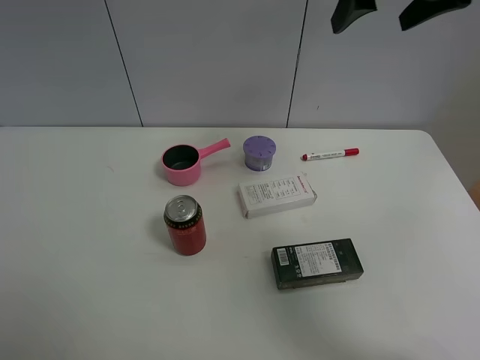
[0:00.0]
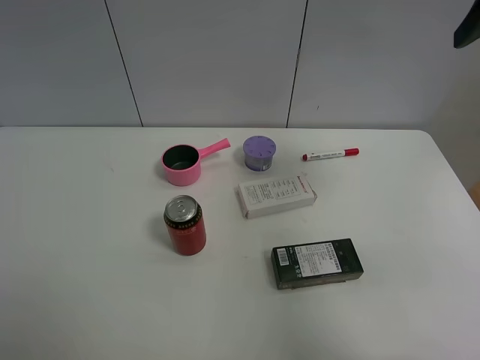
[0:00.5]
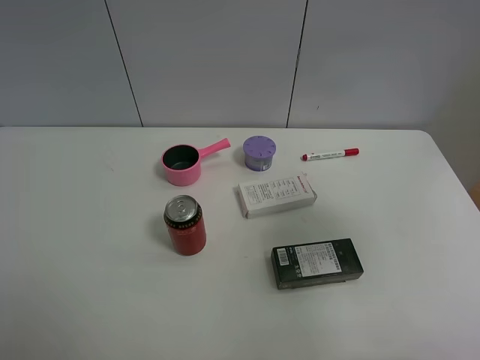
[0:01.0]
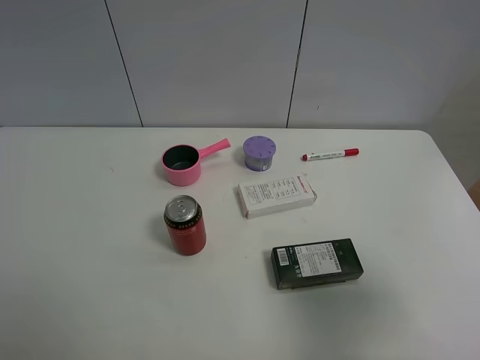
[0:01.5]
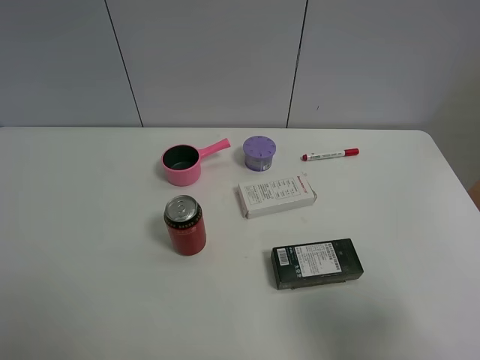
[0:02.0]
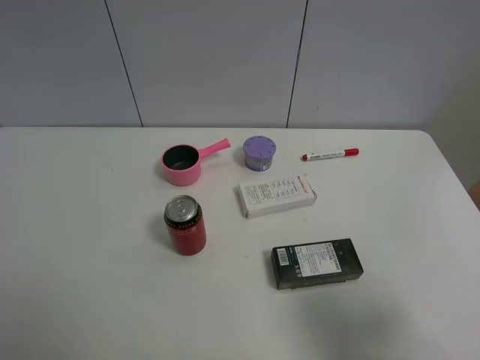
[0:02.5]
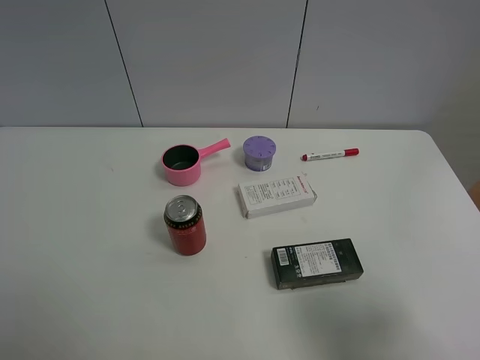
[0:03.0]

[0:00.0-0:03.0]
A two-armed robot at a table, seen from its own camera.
Task of the whole recording: the gripper move the object.
0:00.0 to 0:01.5: The right gripper shifts approximately 30 cm backward and downward.

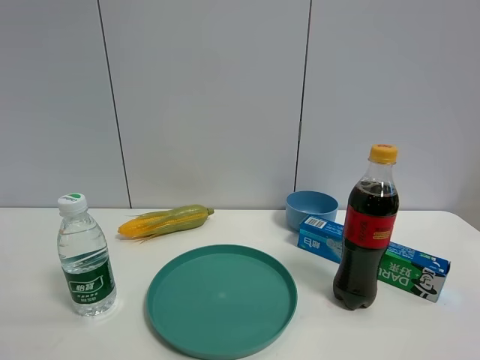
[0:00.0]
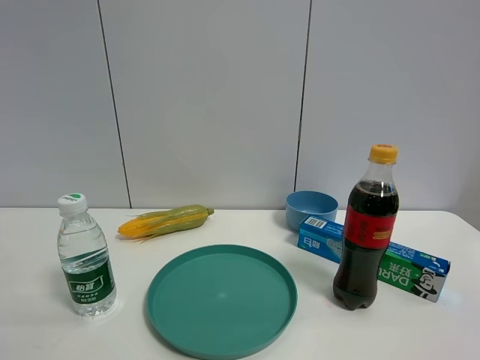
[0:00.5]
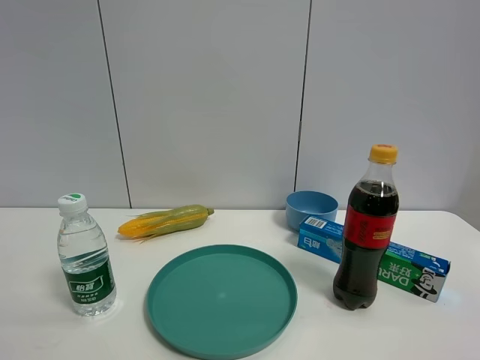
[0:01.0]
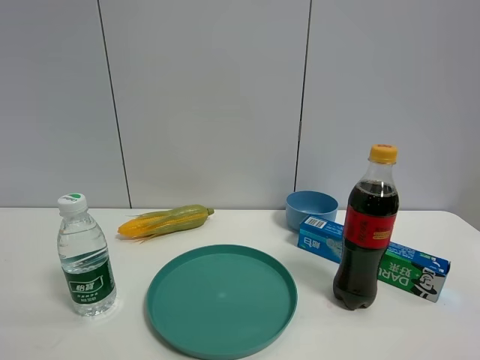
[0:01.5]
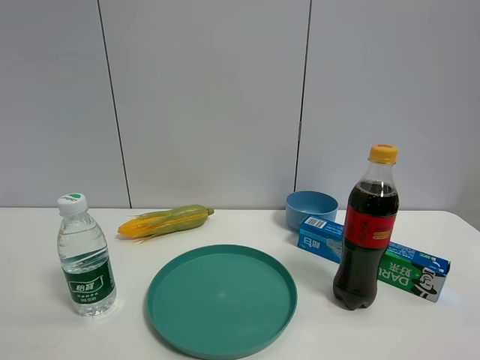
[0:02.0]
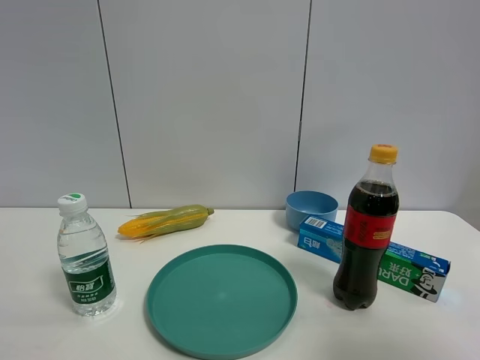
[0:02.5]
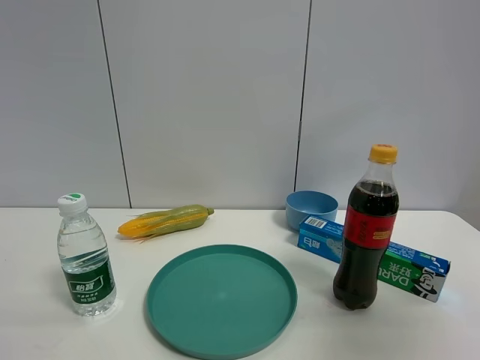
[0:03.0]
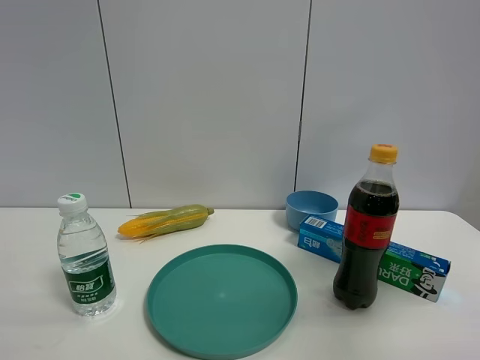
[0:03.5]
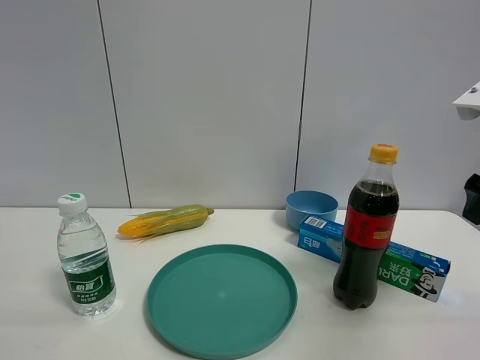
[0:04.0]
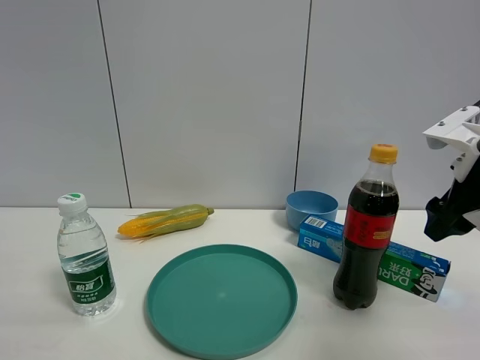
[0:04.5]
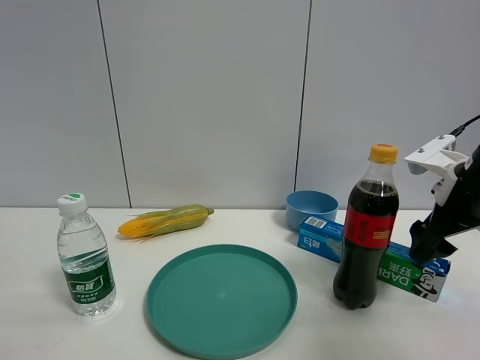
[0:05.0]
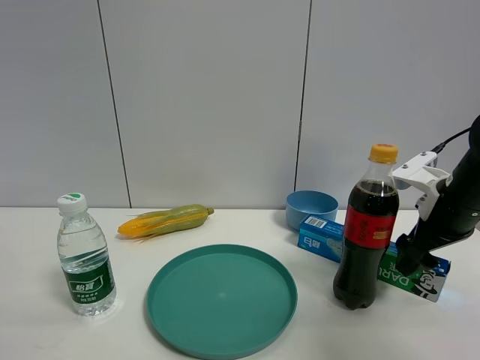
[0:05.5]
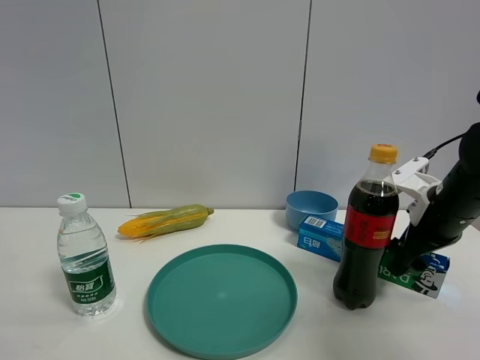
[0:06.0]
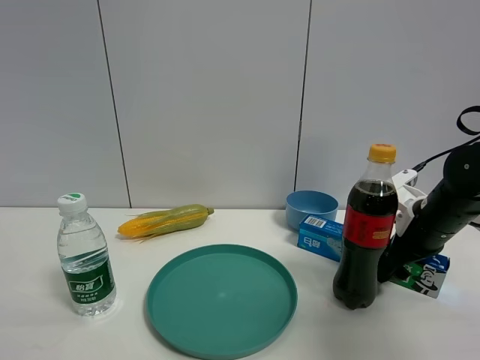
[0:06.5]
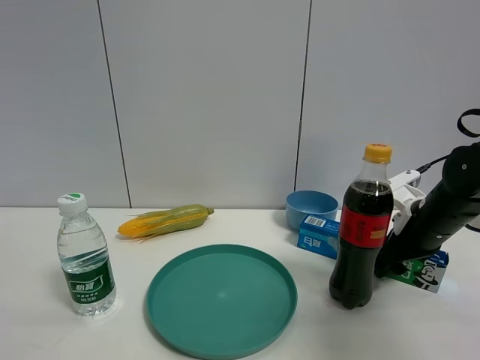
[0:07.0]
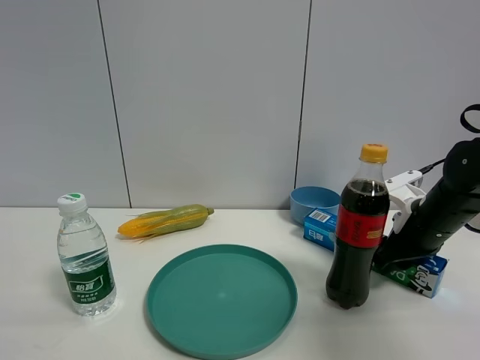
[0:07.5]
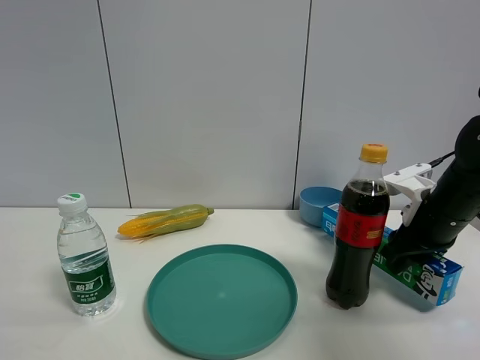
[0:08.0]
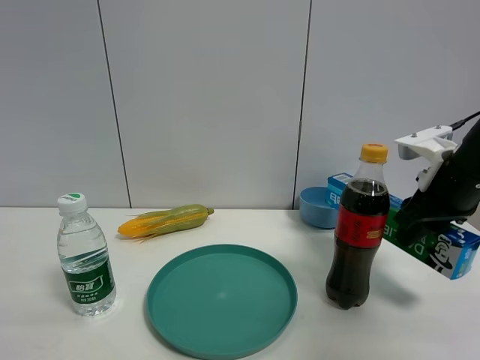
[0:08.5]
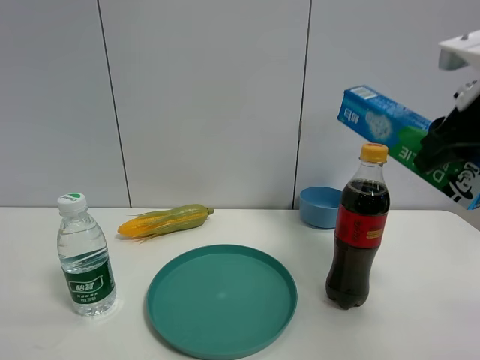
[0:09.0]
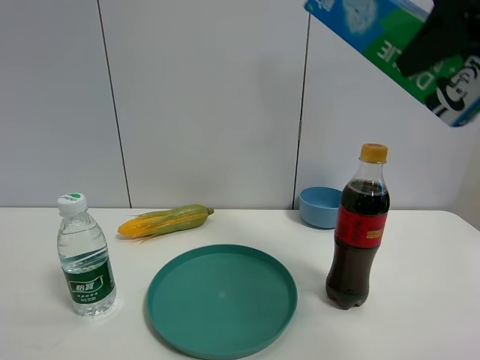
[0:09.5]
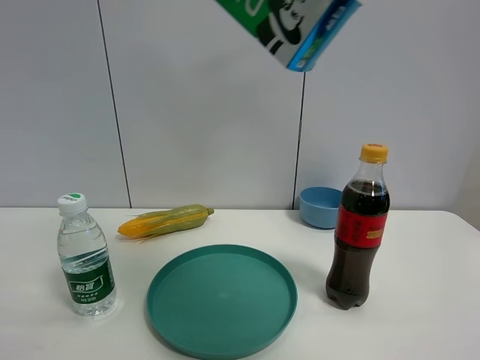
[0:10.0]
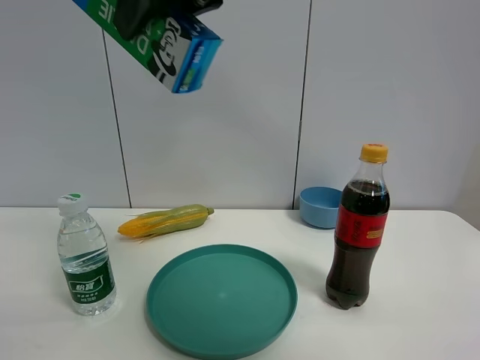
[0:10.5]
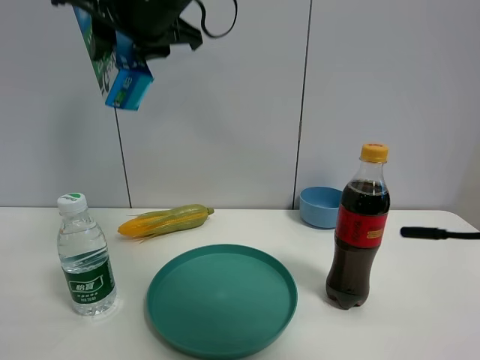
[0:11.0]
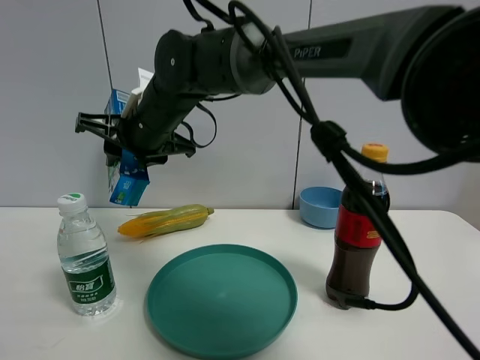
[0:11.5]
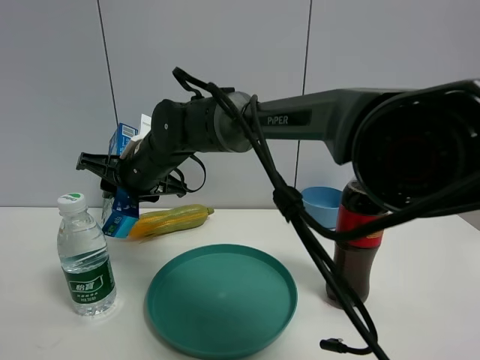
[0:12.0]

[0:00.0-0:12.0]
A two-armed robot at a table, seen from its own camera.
Task of the whole recording: the gripper move the object.
Step, 0:00.0 to 0:07.5: Grasp the toothpaste with the right gripper.
0:00.0 to 0:02.0: Both grippers stay about where they are.
0:02.0 to 0:04.0: The right gripper is displaced forward by approximately 30 cm.
0:04.0 to 0:06.0: The right gripper travels downward and forward by some 15 cm.
0:06.0 to 0:08.0: The right gripper closes its fingers.
0:08.0 to 0:10.0: The right gripper heads upward, to the left and backward, covering about 35 cm.
0:10.0 to 0:12.0: The right gripper goes roughly 40 cm downward, to the left and forward.

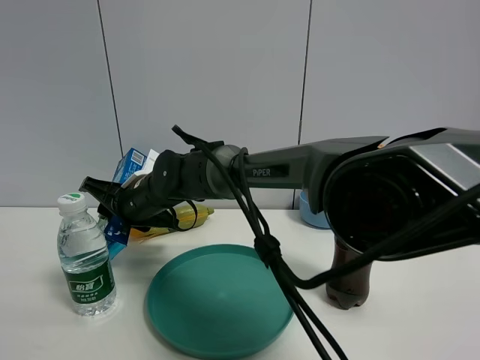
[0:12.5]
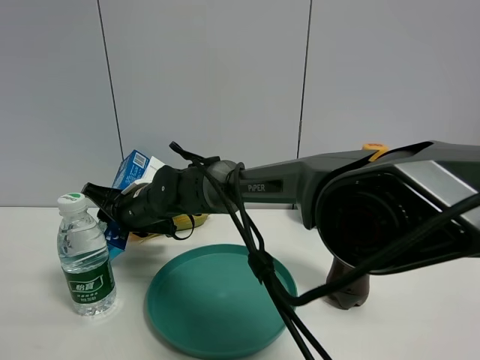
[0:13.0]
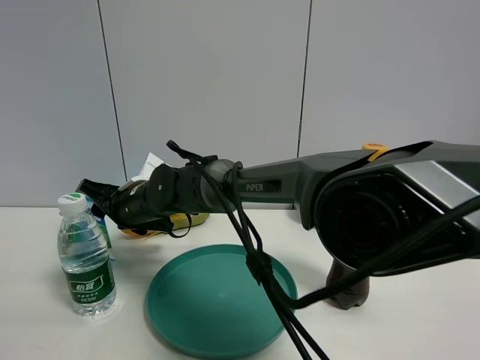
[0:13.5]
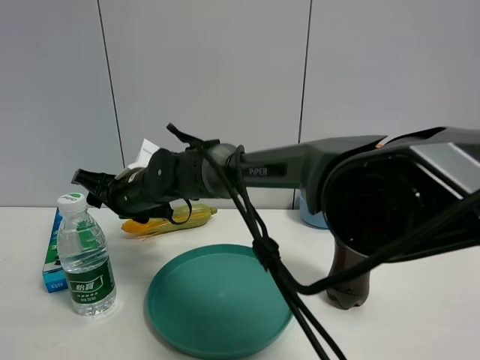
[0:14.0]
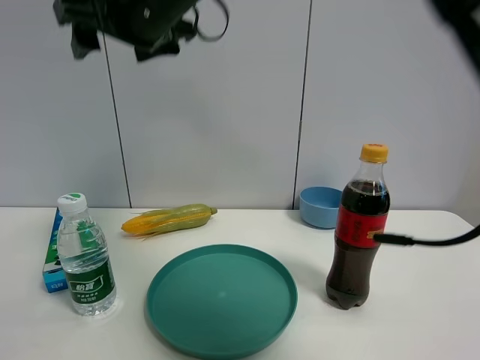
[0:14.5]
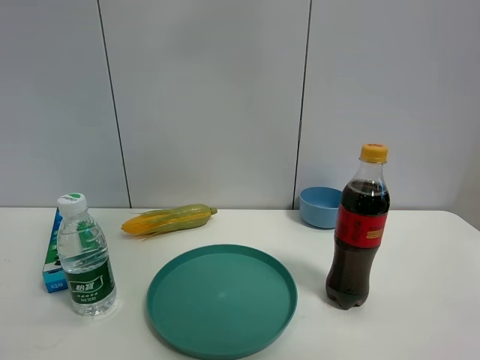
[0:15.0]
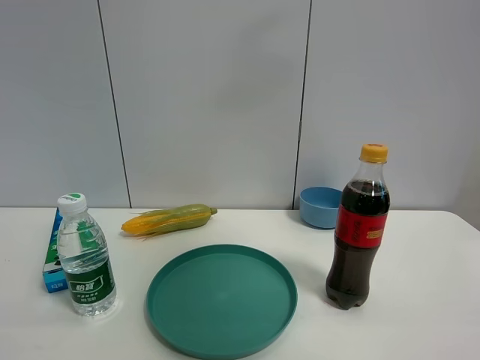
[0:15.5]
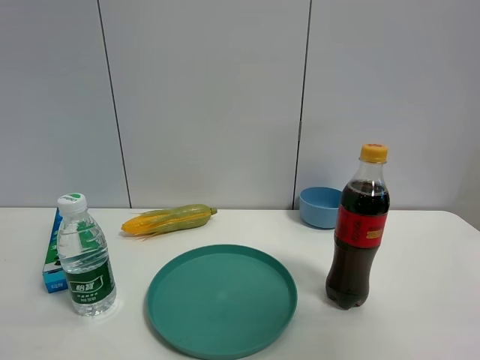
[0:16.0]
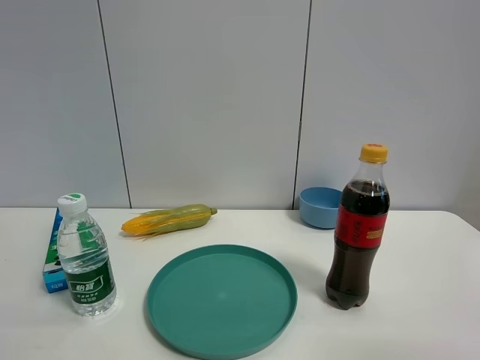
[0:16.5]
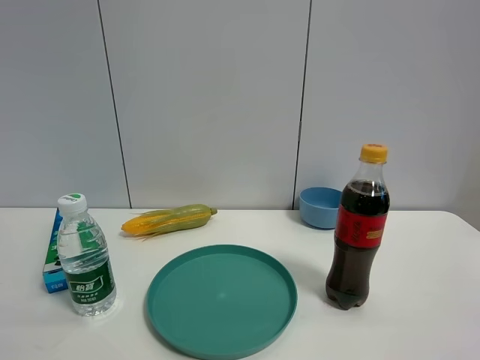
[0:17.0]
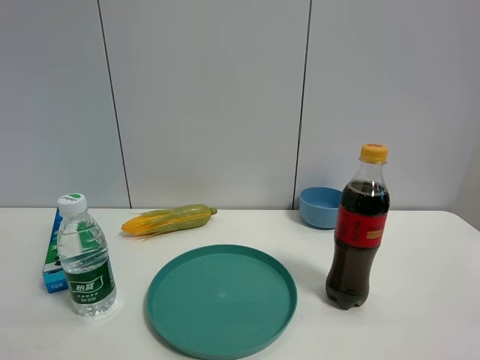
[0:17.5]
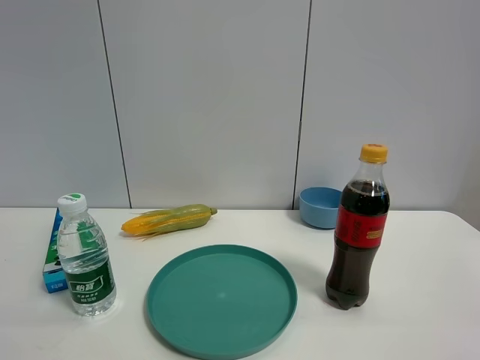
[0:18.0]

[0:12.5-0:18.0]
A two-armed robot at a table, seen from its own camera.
Task of the whole recording: the gripper move the object.
0:12.5 to 0:14.5: The right gripper travels upward by roughly 30 cm, and opens its fingers.
0:14.5 to 0:16.0: The right gripper moves to the right and backward, roughly 40 cm.
0:16.0 to 0:18.0: The right gripper is displaced backward and downward by roughly 15 cm.

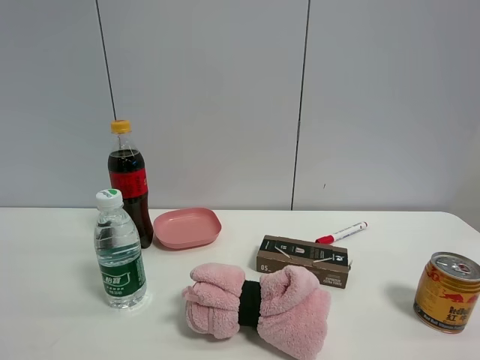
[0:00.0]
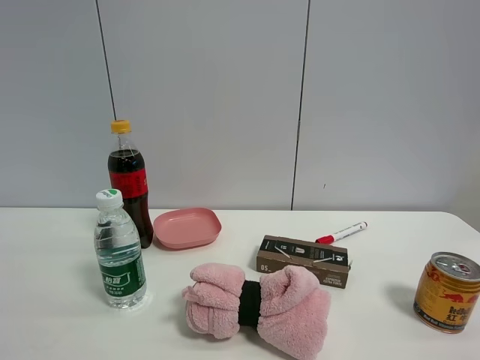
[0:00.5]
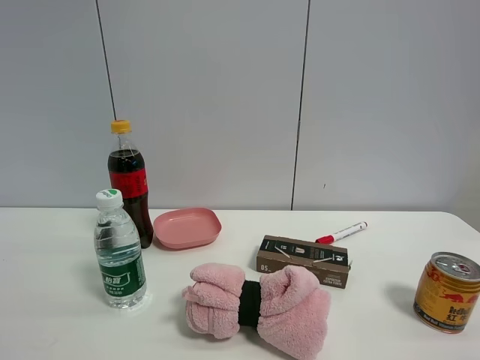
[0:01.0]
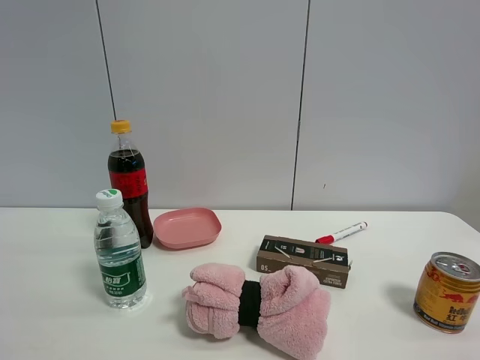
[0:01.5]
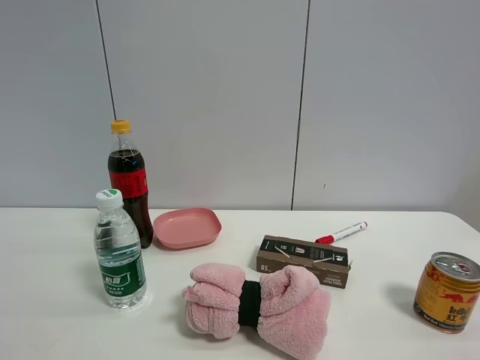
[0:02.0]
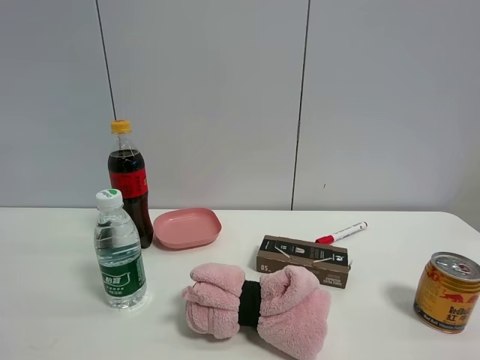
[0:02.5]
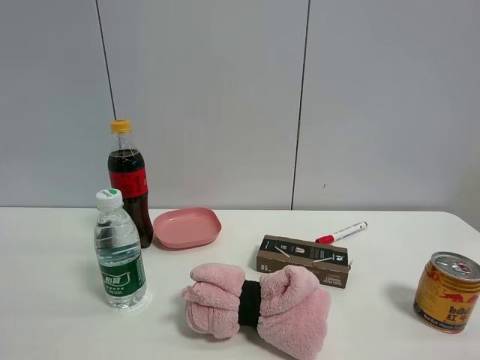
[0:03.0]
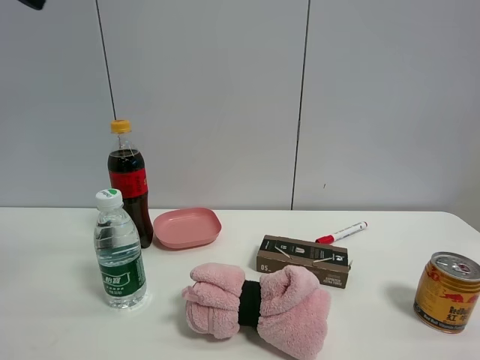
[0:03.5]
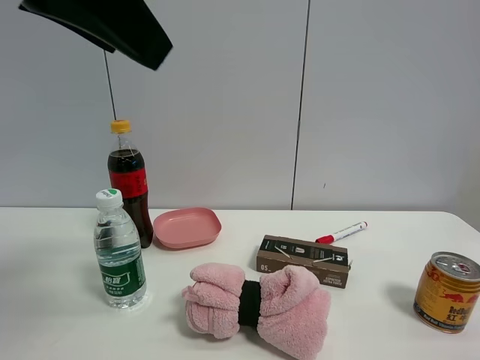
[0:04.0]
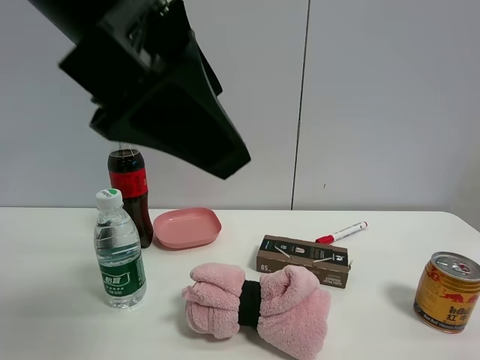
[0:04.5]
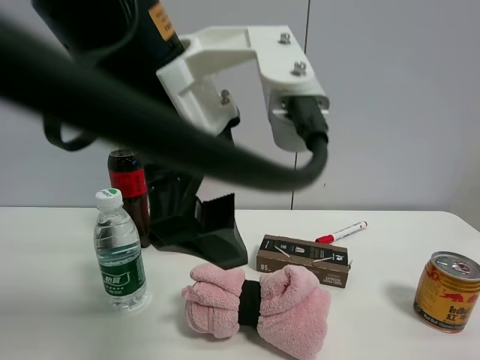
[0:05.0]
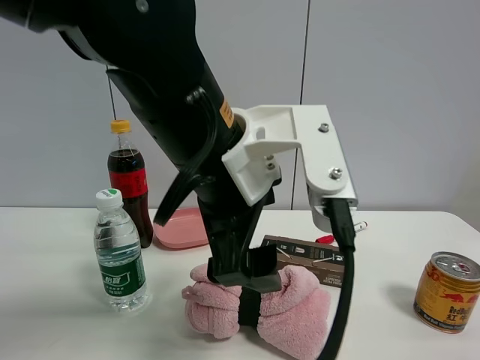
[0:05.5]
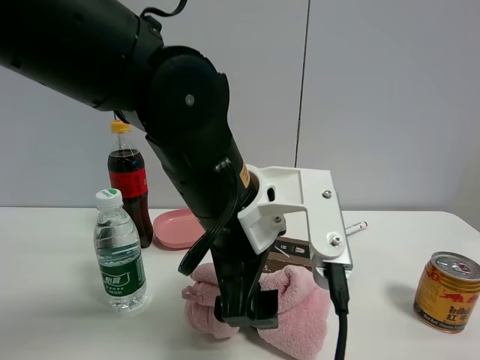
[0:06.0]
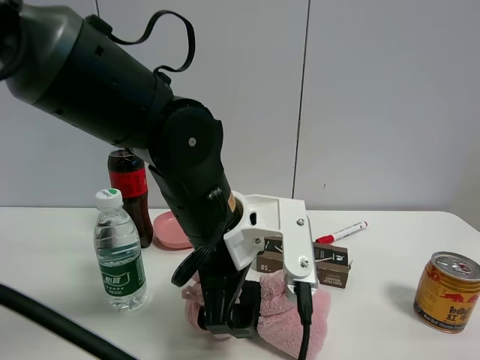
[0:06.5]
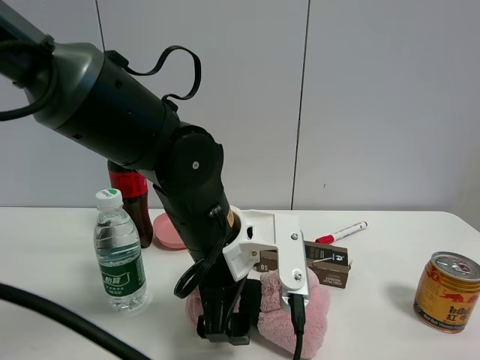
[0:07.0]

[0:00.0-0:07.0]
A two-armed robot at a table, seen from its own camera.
Task of the whole recording: the gripper move the object.
0:00.0 to 0:02.0: Both grippers stay about where they are.
0:03.5 to 0:05.0: The left gripper heads to the right and downward, covering roughly 25 cm.
0:05.0 to 0:07.0: The left gripper travels downward and forward by roughly 15 cm.
